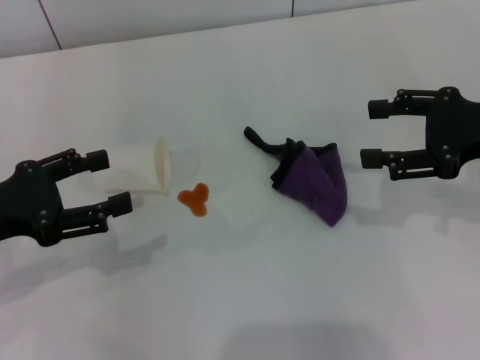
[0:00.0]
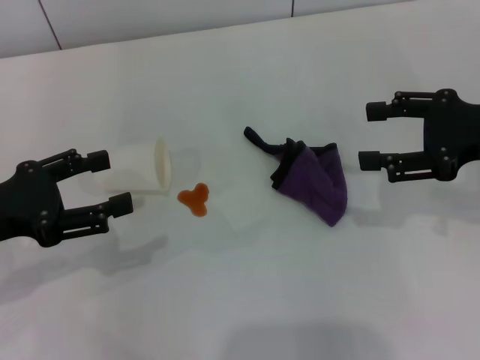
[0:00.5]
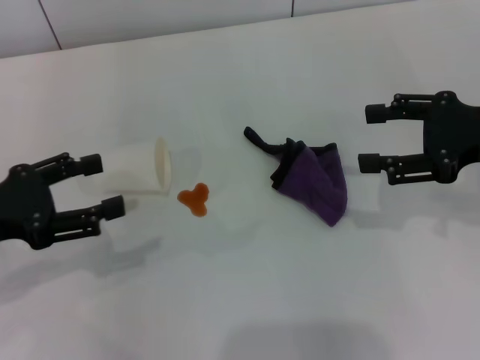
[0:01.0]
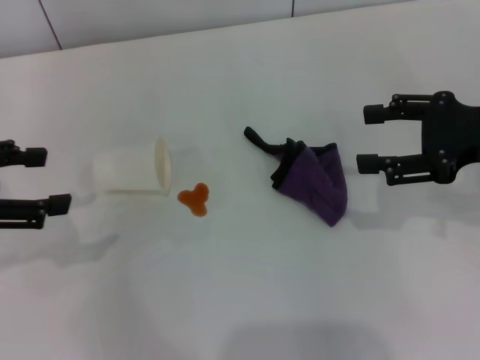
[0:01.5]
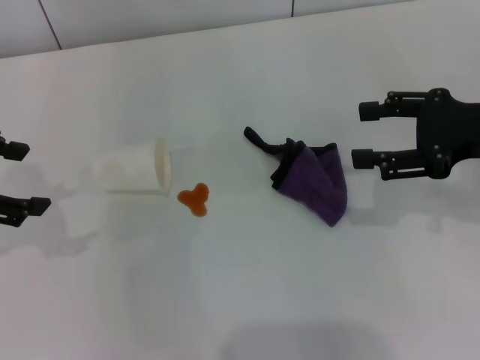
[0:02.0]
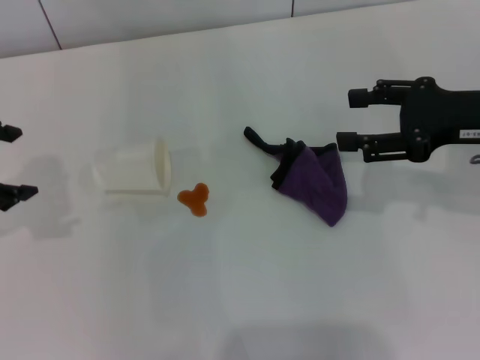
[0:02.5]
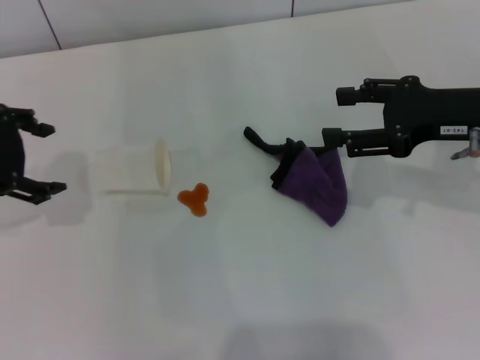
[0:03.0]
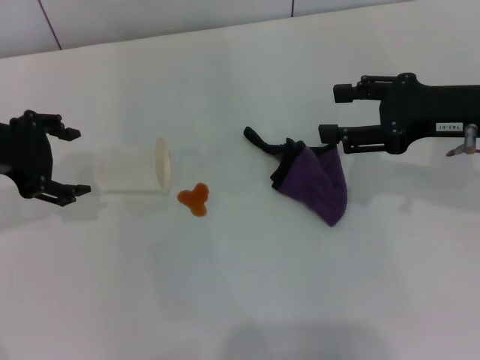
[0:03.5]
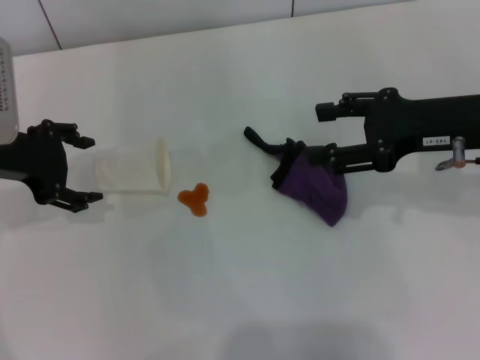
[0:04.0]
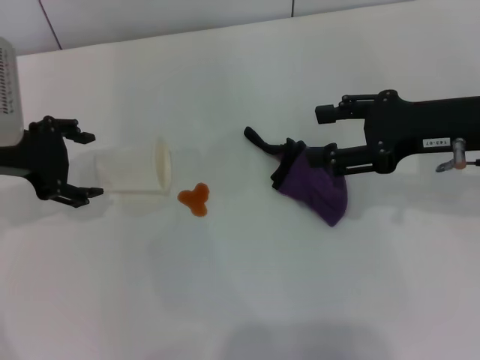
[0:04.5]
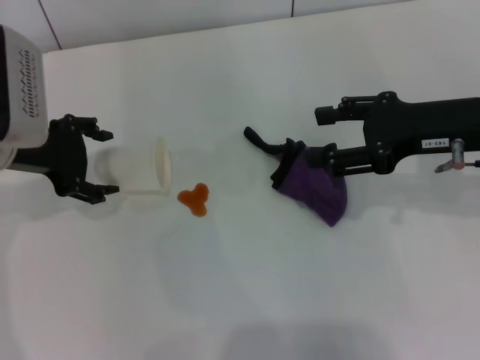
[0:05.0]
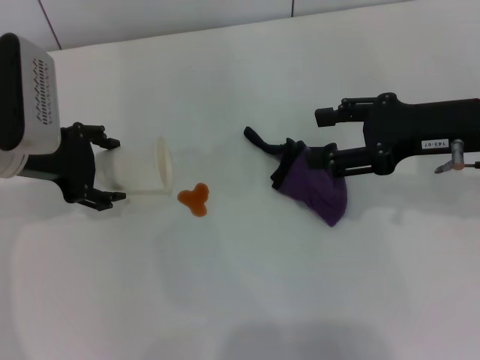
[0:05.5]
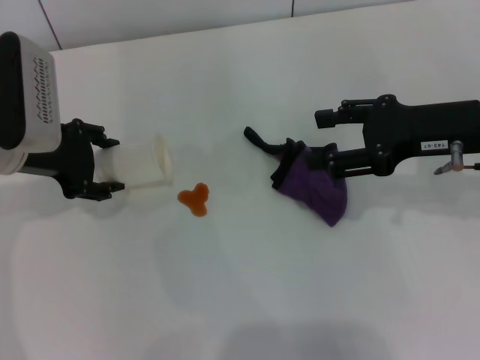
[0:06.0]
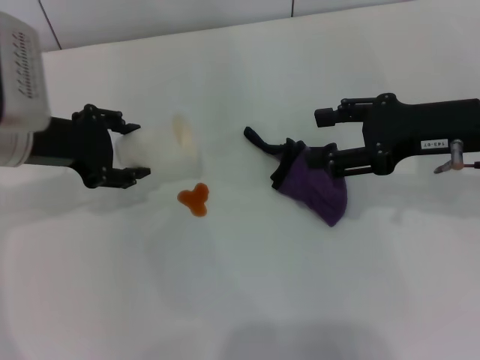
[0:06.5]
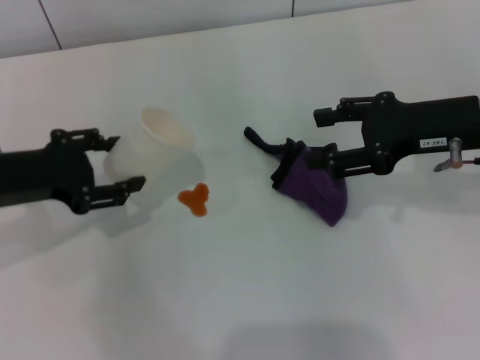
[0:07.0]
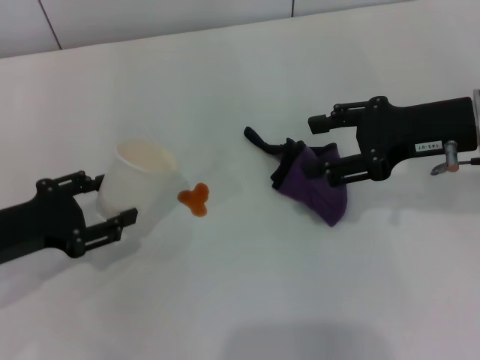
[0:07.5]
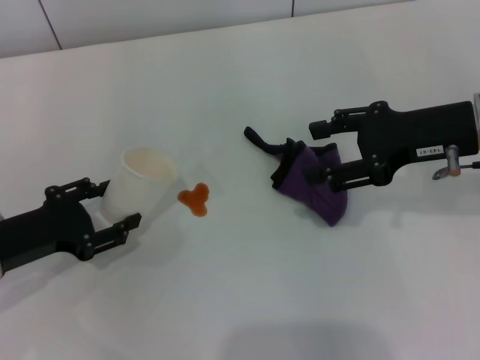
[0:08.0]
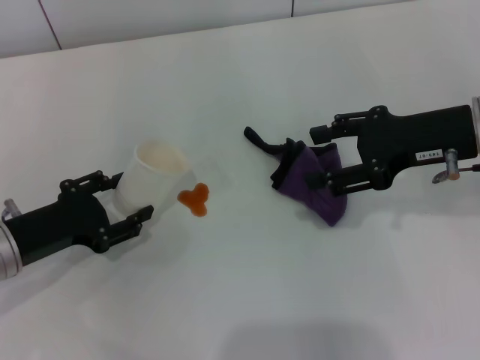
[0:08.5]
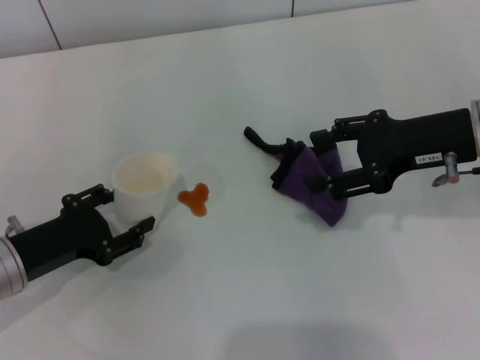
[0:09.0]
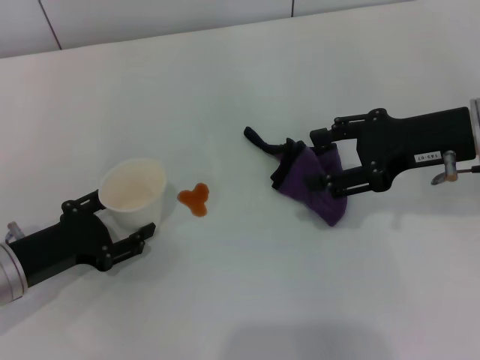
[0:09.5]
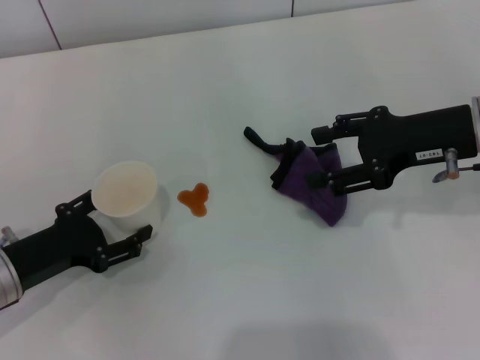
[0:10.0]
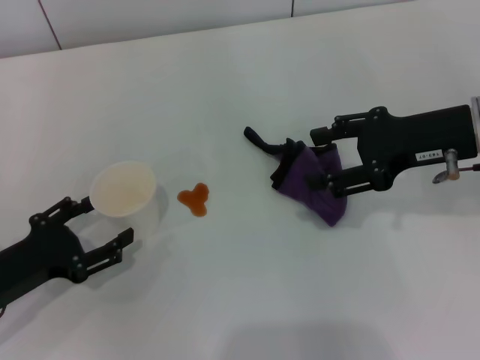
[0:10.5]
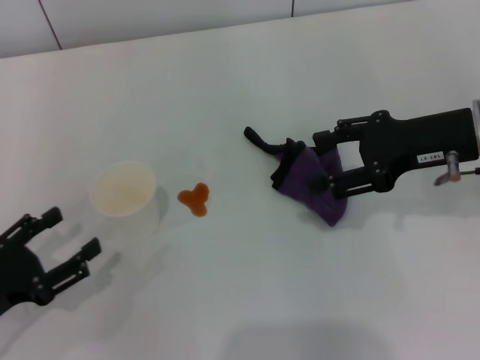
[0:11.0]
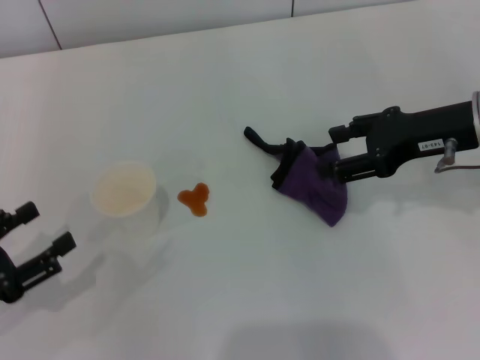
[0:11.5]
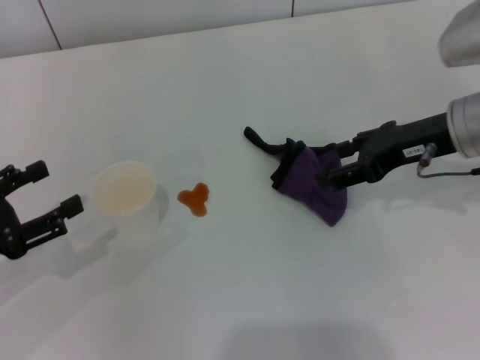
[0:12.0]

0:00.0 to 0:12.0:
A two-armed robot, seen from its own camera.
Step, 0:00.0 to 0:05.5: Grasp the paper cup with the left gripper.
Step, 0:06.0 to 0:10.5: Stand the paper cup upright with the left gripper.
0:00.0 to 0:02.0: The left gripper goes approximately 10 cm upward.
0:02.0 to 0:04.0: The left gripper heads downward, forward and to the right, covering about 10 cm.
0:04.0 to 0:06.0: There are only small adjustments of the grippers.
0:06.0 to 0:08.0: The left gripper shifts about 15 cm backward, downward and to the left, and closes its fingers.
0:08.0 to 0:10.0: The left gripper opens up.
0:10.0 to 0:12.0: The left gripper goes some 10 cm upward and to the left.

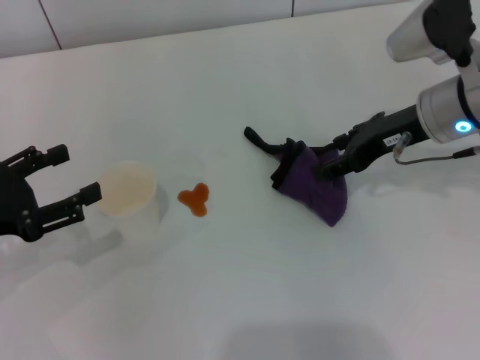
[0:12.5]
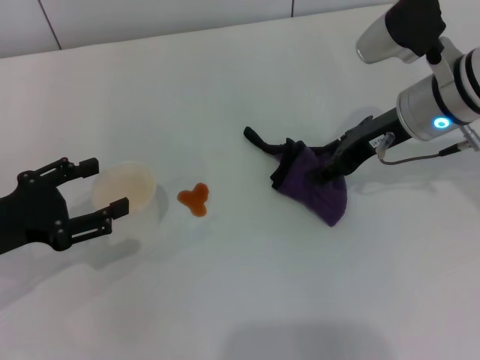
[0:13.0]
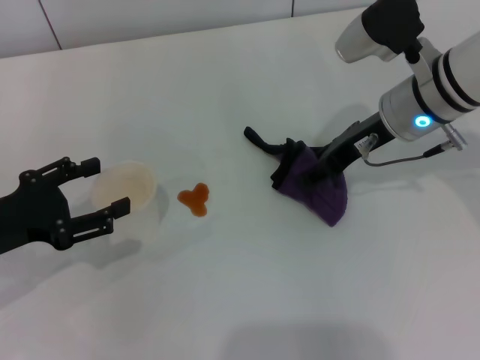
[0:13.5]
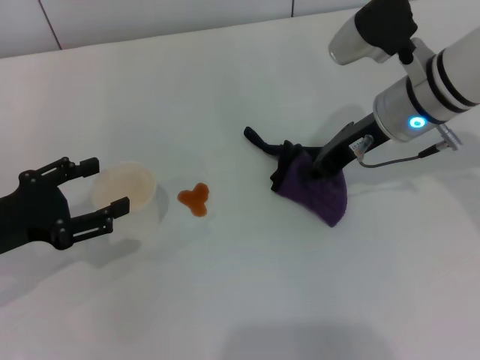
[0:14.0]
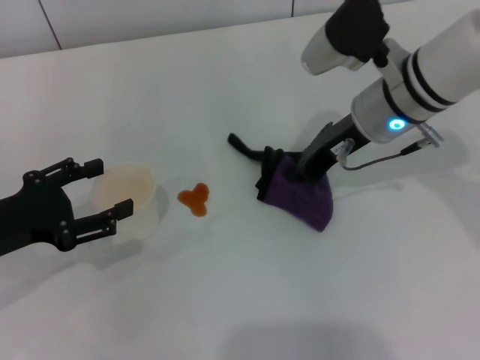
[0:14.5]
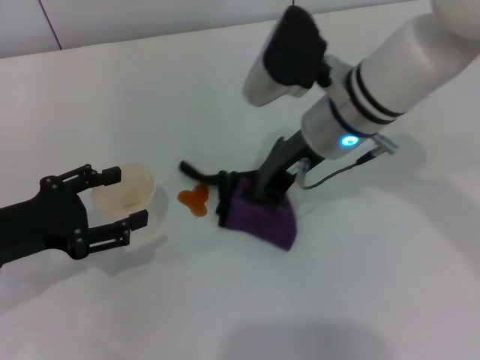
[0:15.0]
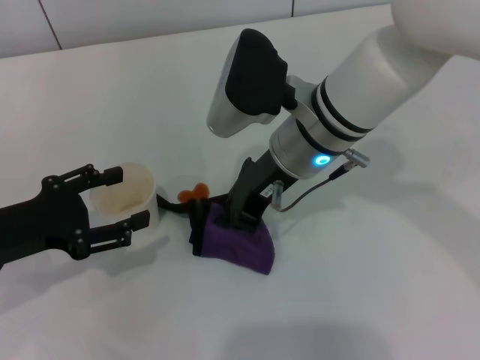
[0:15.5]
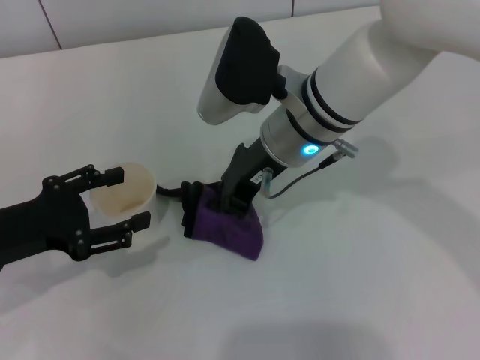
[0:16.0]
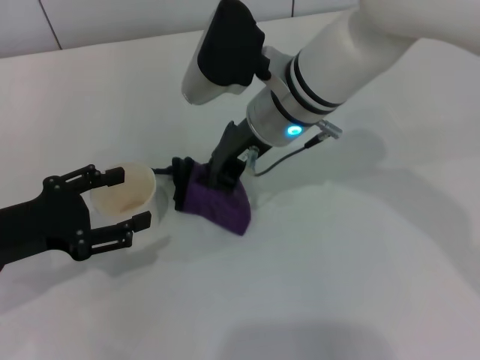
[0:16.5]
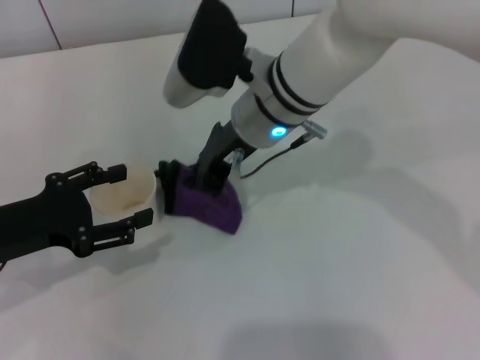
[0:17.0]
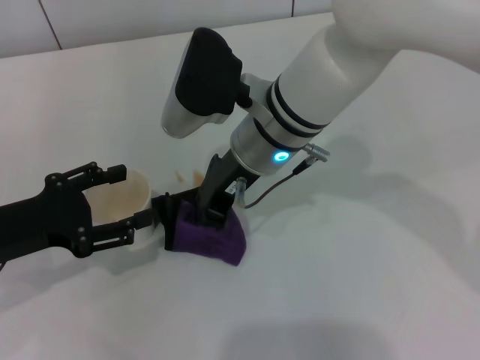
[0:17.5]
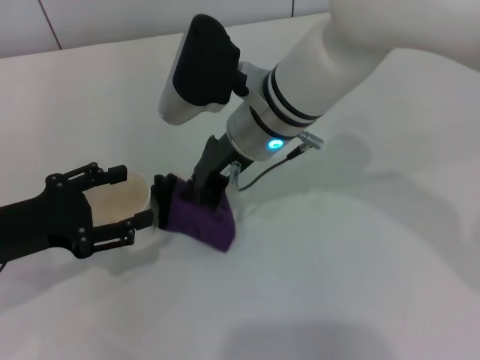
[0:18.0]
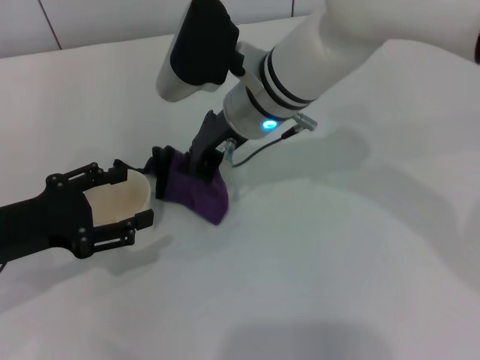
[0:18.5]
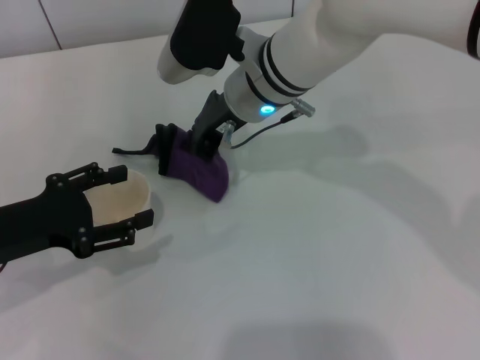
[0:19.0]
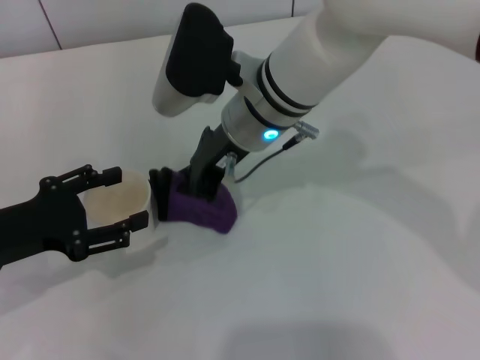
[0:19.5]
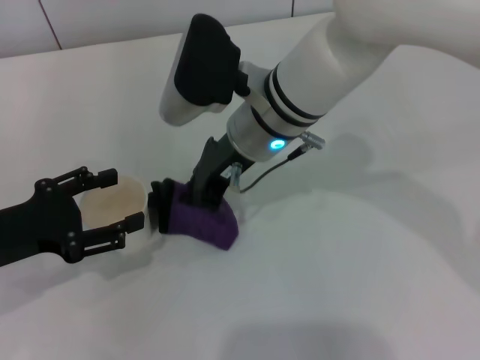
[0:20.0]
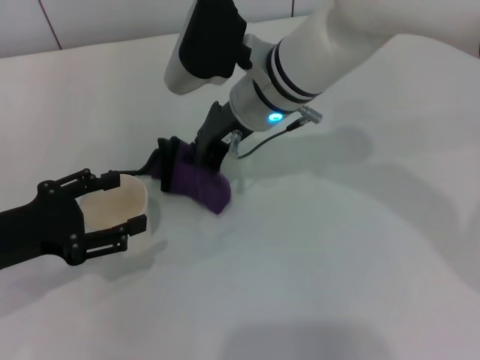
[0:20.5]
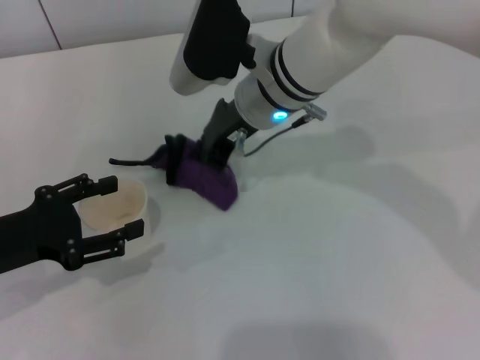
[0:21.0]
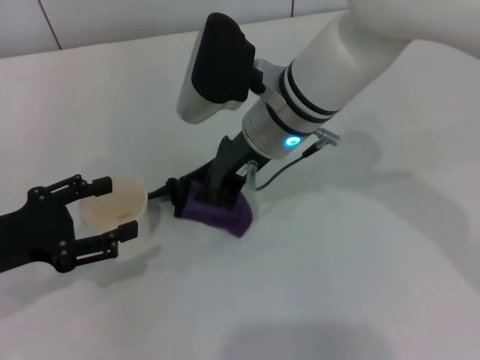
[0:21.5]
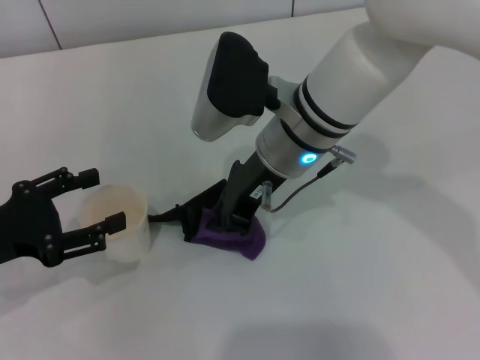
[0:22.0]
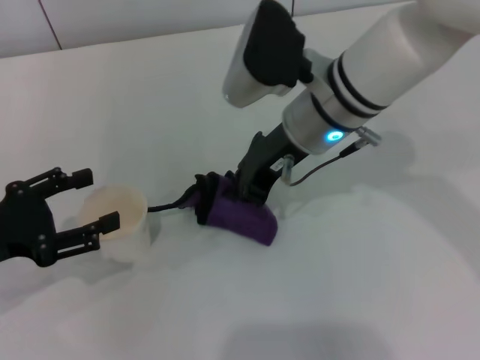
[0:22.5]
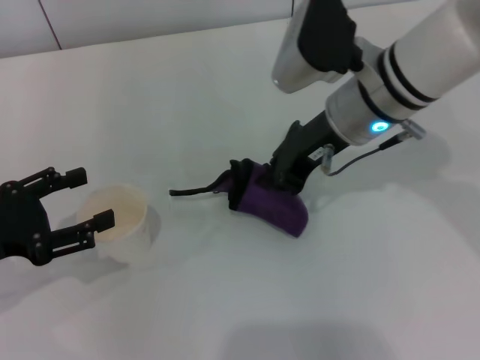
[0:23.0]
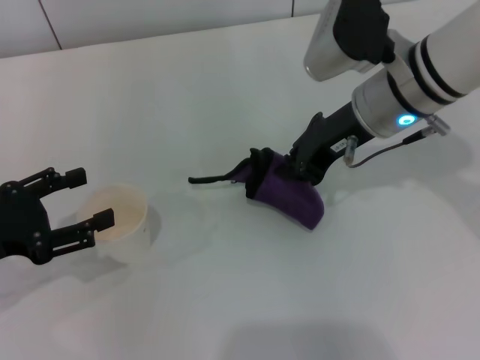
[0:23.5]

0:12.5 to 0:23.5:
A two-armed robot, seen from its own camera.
Step, 0:14.5 to 0:23.0: Wipe the stains off the table with the right gripper.
0:12.5 to 0:14.5: The right gripper heads to the left, covering roughly 5 cm, and closes its fingers.
0:14.5 to 0:16.0: The right gripper travels to the left by approximately 10 cm.
0:16.0 to 0:21.5: The grippers stay close to where they were, moving slightly.
0:21.5 to 0:23.5: The right gripper heads to the right, covering approximately 10 cm.

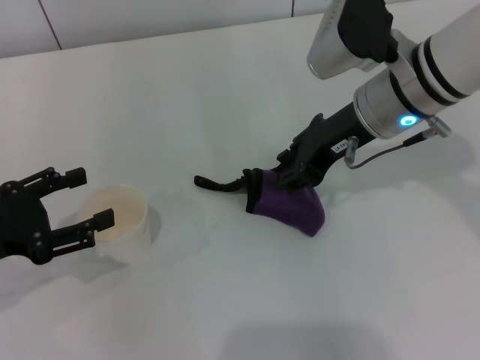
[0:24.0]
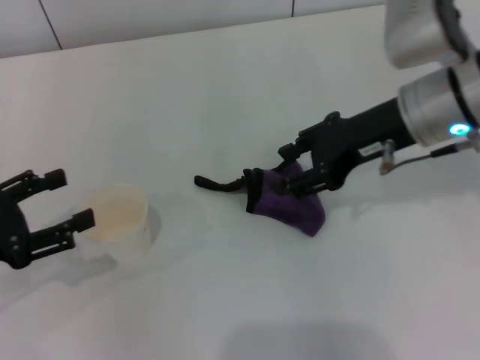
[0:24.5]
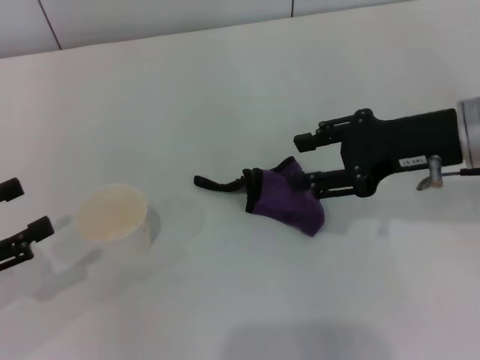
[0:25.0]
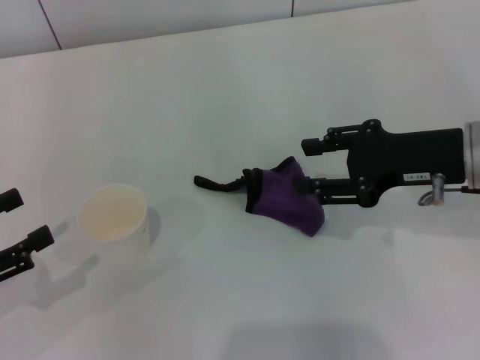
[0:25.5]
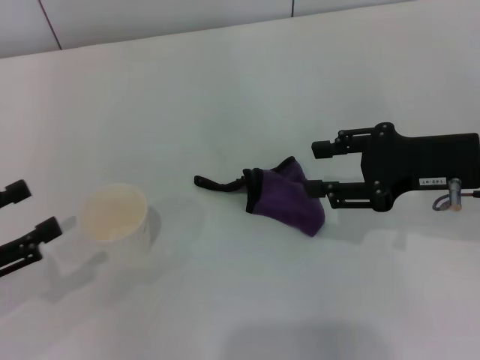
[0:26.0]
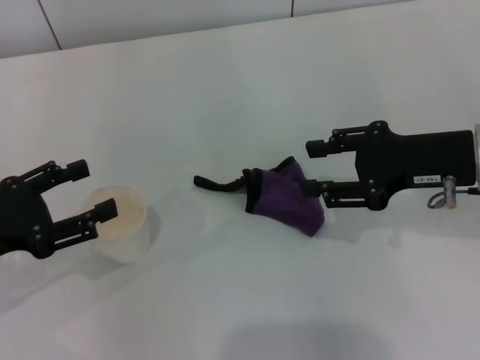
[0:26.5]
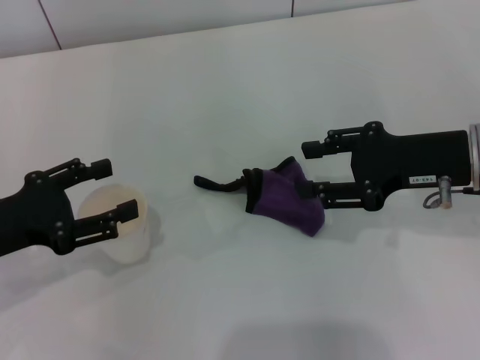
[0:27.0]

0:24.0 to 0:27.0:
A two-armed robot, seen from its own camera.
0:24.0 to 0:25.5: The right gripper heads to the right and backward, covering roughly 10 cm, and opens up; the left gripper shifts by roughly 5 cm.
0:25.5 to 0:27.0: The left gripper is displaced to the right and forward by approximately 10 cm.
